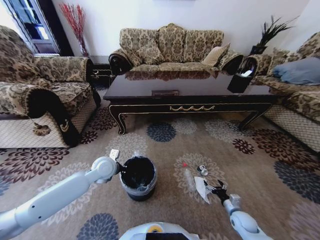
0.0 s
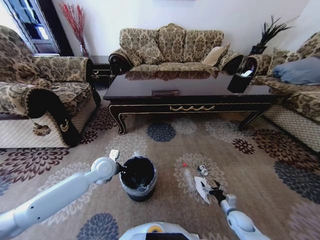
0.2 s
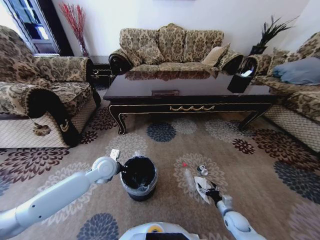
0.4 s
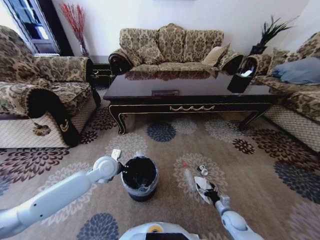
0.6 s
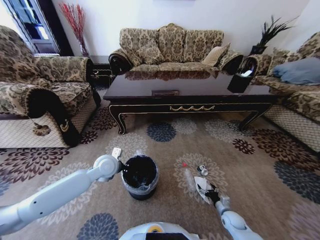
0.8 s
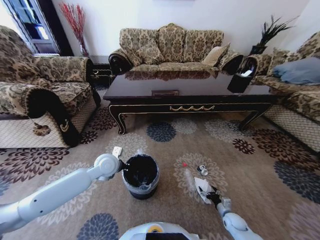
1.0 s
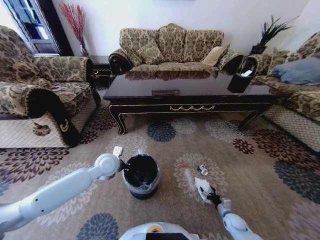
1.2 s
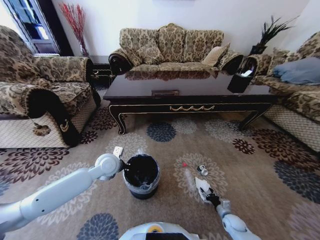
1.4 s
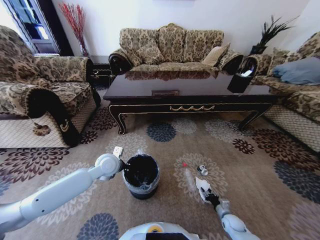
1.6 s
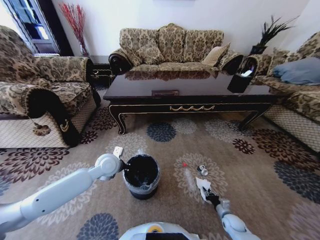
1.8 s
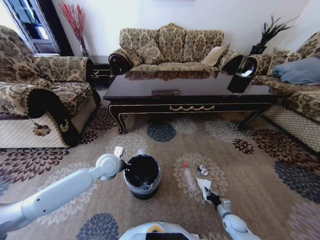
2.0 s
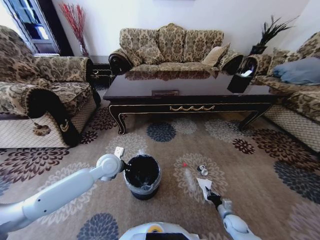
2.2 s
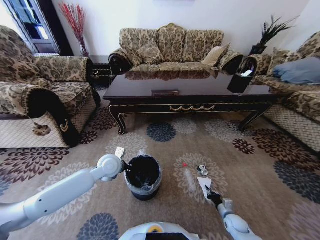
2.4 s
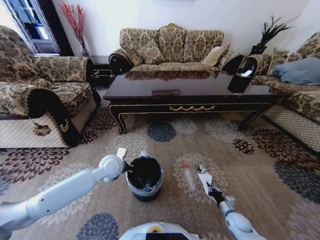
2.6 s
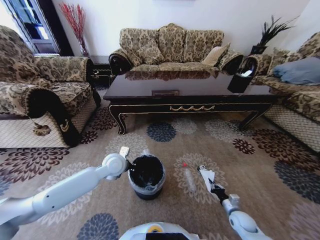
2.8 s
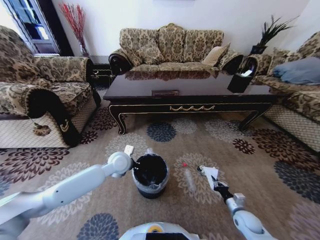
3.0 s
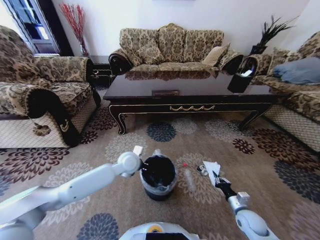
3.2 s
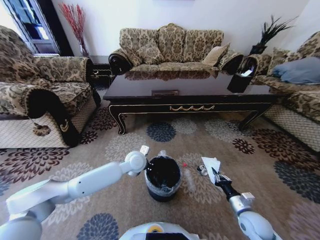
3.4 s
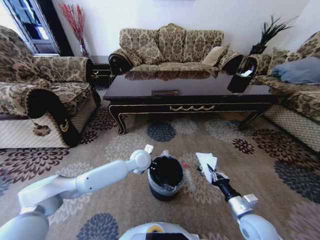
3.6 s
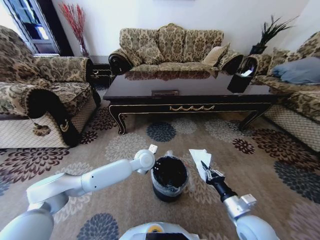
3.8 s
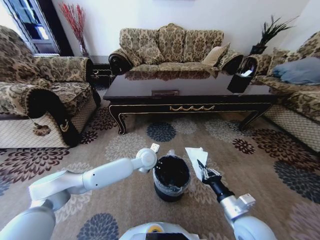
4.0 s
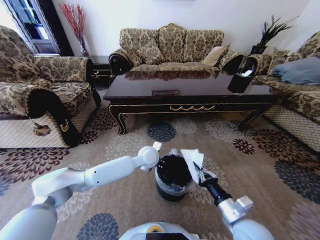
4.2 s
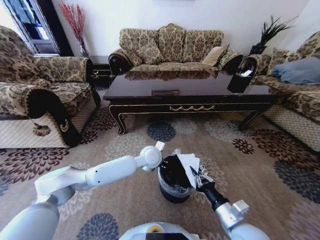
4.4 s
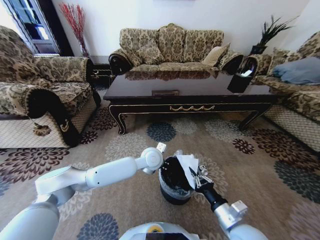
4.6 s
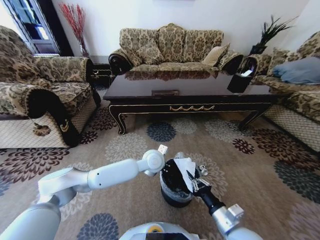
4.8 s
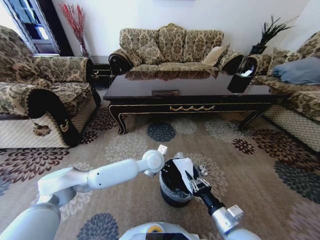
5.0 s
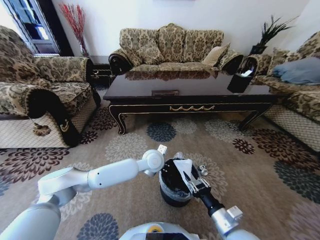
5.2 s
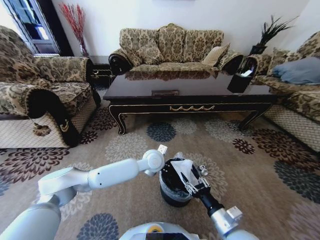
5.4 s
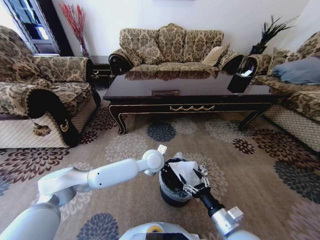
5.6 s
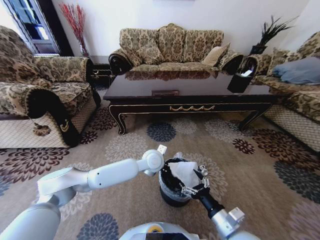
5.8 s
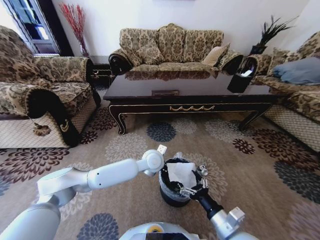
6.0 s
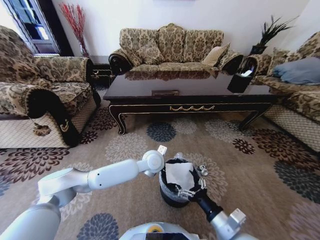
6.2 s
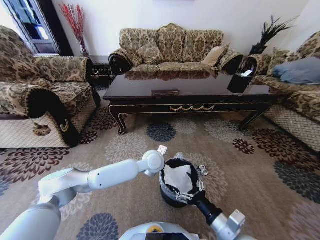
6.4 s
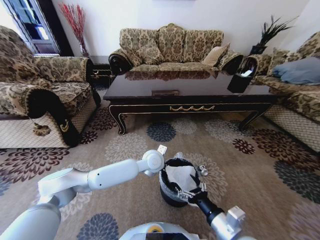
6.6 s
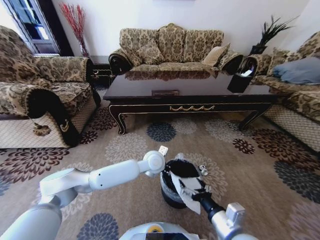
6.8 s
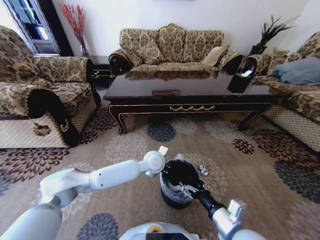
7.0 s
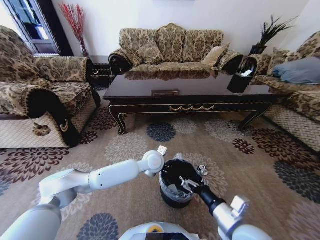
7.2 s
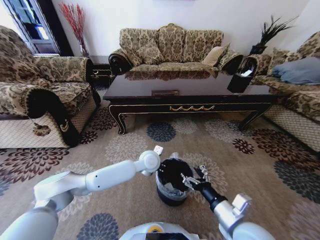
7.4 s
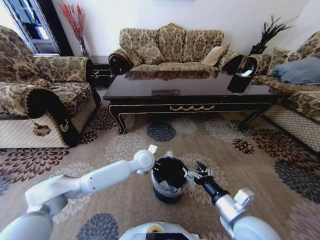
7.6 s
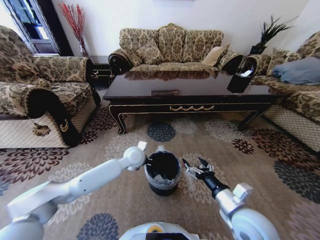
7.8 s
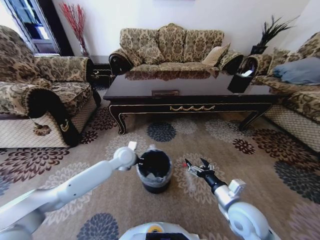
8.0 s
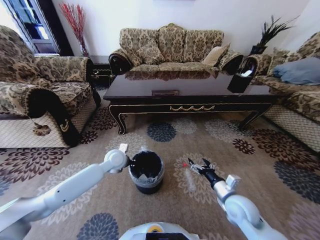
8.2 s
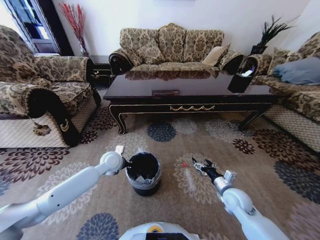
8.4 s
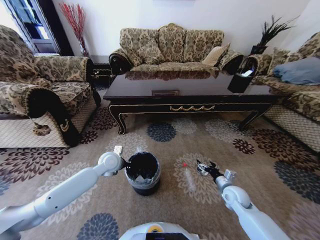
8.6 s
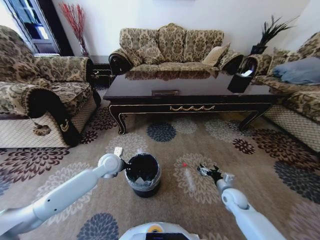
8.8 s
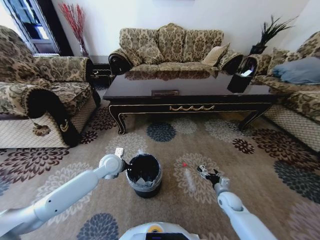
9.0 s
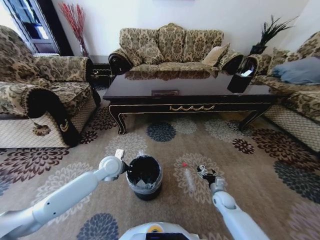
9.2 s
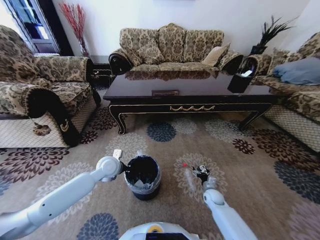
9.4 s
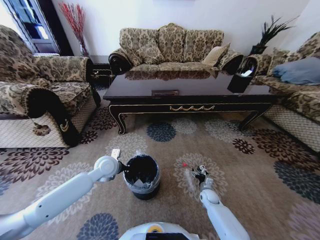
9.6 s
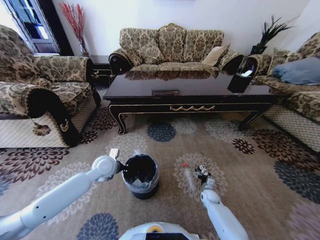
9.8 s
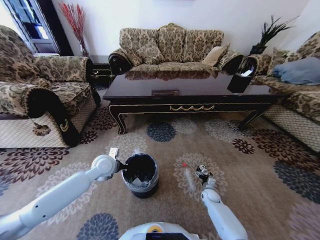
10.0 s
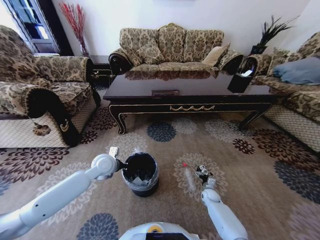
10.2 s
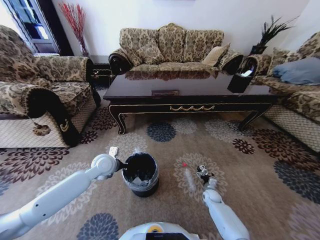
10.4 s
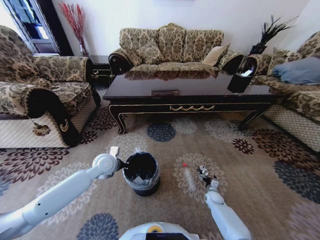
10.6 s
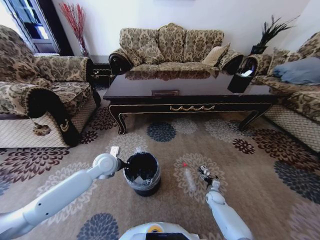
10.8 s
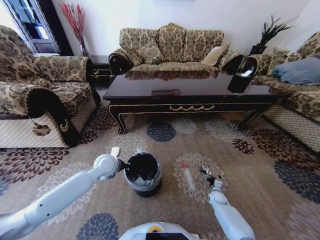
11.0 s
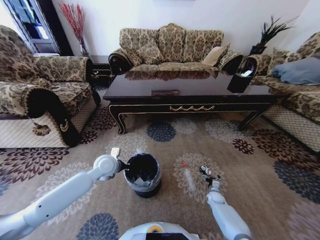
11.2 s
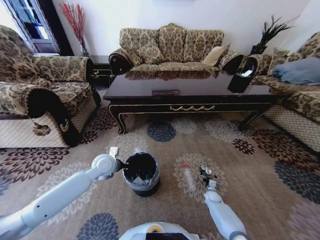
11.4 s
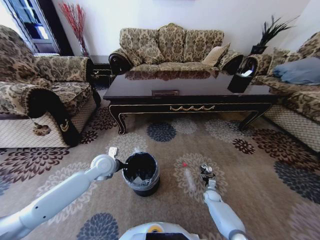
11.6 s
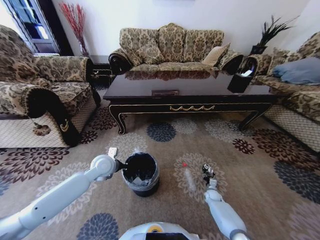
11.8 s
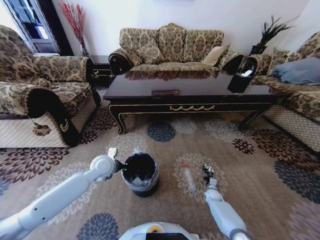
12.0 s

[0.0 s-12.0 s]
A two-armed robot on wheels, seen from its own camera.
Task of the whole recording: Move to the front of the table and pick up the trash from the floor, then place it into the trash bin.
0.0 to 1.6 s: The right gripper travels downward by roughly 5 cm, and closes up.
1.6 to 3.0 s: The right gripper goes some 10 cm upward, and closes; the left gripper moves some 5 cm.
3.0 to 4.4 s: The right gripper travels upward and to the left by approximately 25 cm. Meanwhile the left gripper shifts roughly 15 cm to the right.
4.4 to 6.0 s: The right gripper opens its fingers.
6.0 to 7.6 s: The right gripper heads upward, covering roughly 5 cm.
7.6 to 9.0 s: The right gripper heads downward, forward and to the right, covering roughly 30 cm. Meanwhile the left gripper moves to the left, approximately 15 cm.
9.0 to 10.4 s: The right gripper moves downward, some 10 cm.
10.4 to 12.0 s: The right gripper closes its fingers.

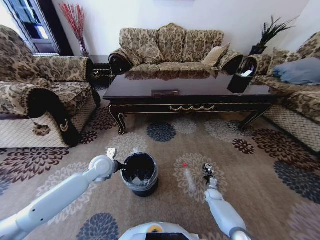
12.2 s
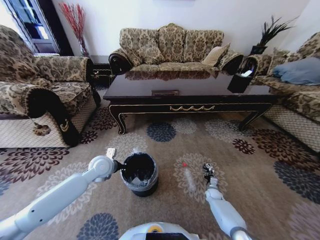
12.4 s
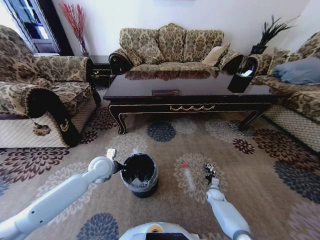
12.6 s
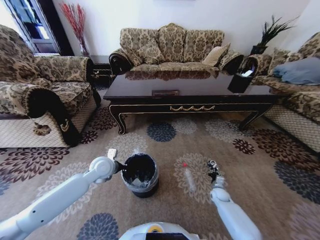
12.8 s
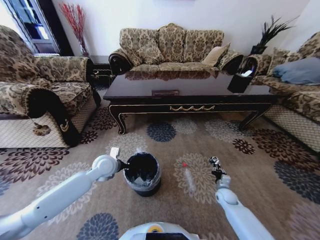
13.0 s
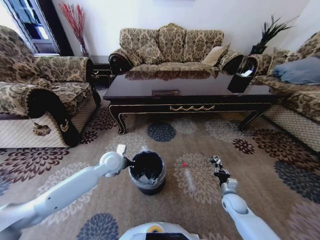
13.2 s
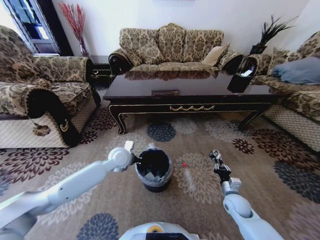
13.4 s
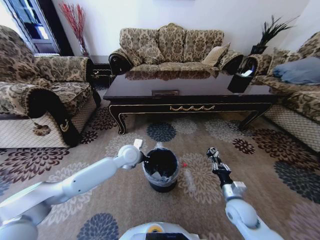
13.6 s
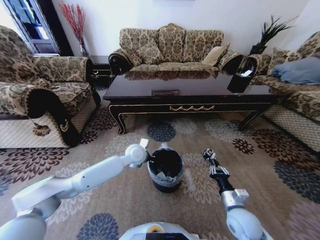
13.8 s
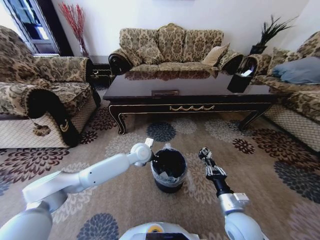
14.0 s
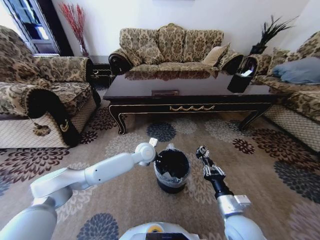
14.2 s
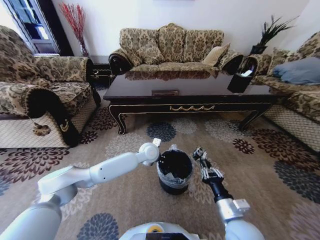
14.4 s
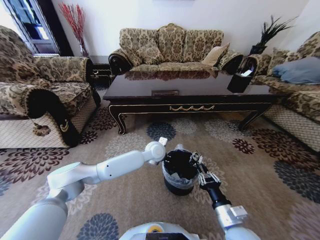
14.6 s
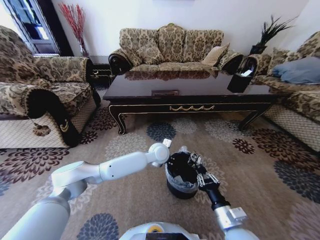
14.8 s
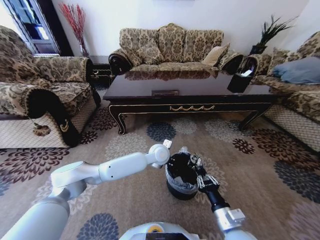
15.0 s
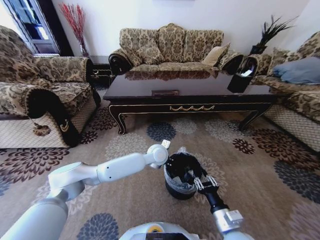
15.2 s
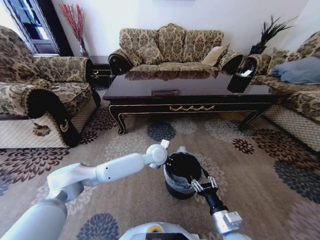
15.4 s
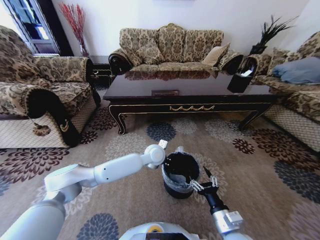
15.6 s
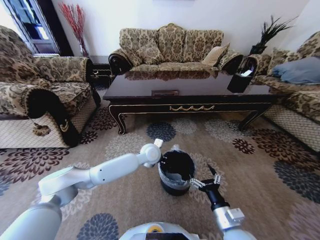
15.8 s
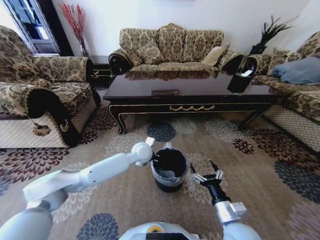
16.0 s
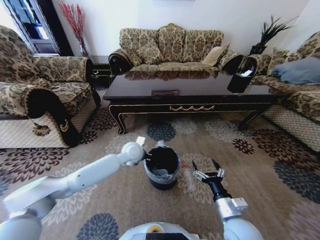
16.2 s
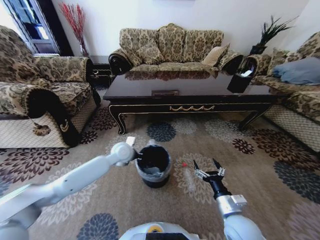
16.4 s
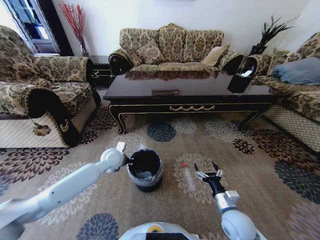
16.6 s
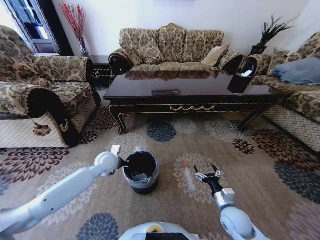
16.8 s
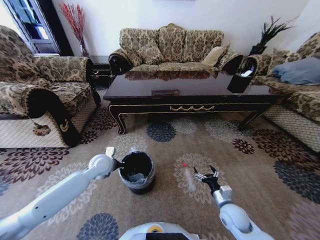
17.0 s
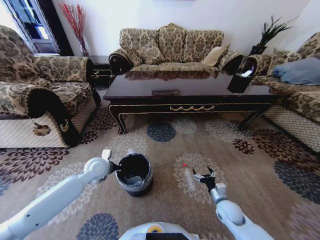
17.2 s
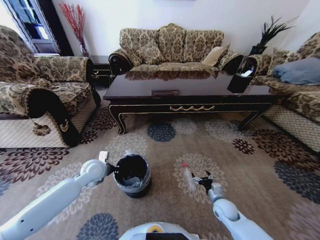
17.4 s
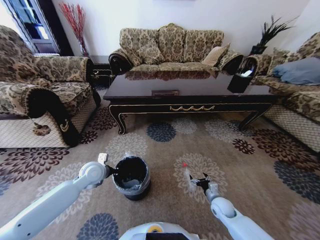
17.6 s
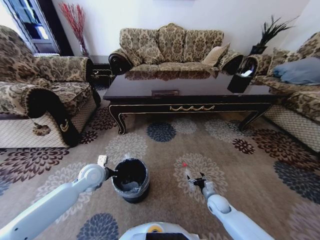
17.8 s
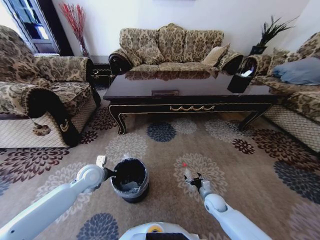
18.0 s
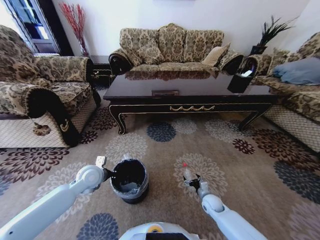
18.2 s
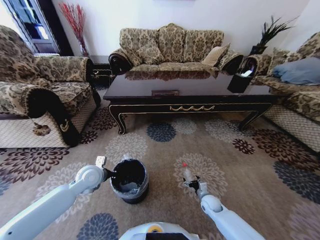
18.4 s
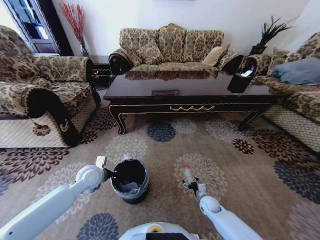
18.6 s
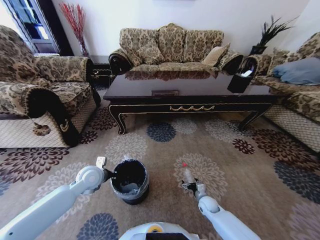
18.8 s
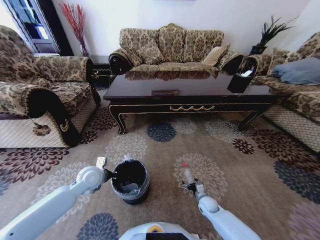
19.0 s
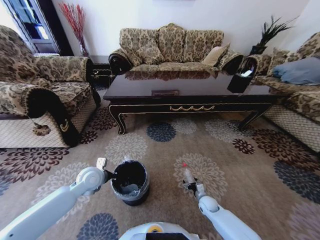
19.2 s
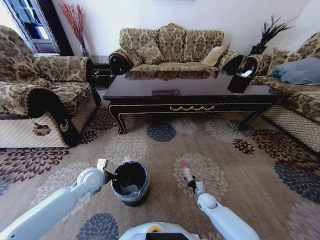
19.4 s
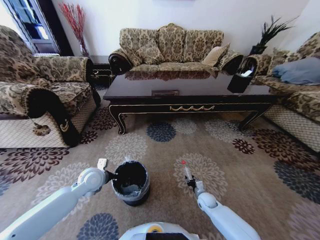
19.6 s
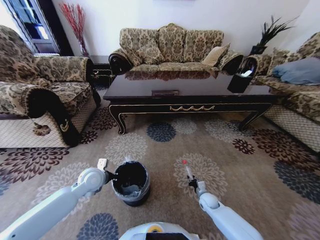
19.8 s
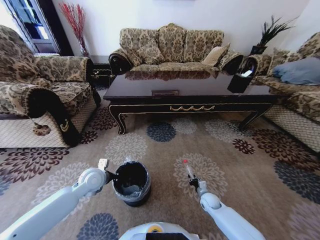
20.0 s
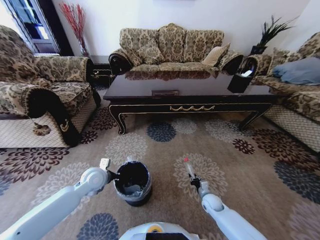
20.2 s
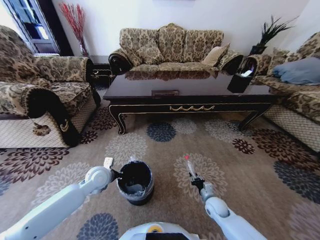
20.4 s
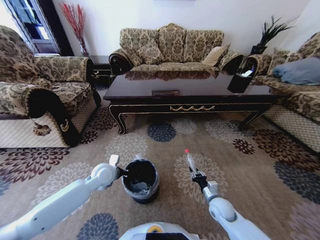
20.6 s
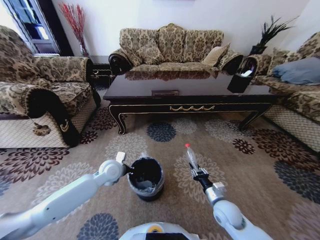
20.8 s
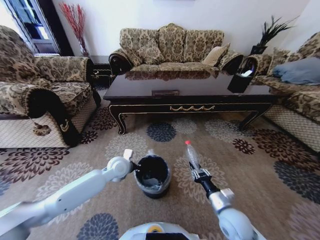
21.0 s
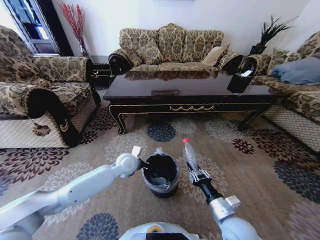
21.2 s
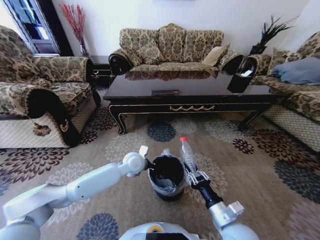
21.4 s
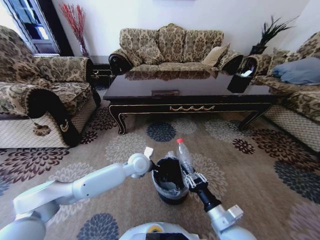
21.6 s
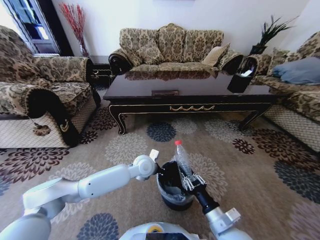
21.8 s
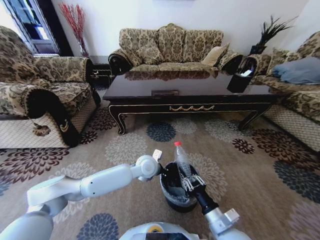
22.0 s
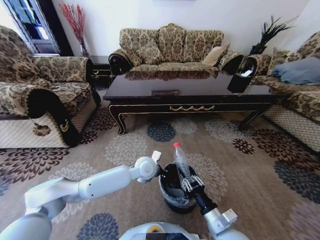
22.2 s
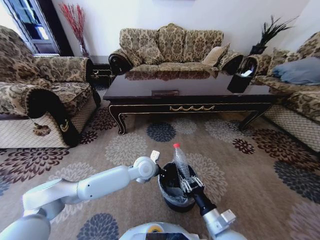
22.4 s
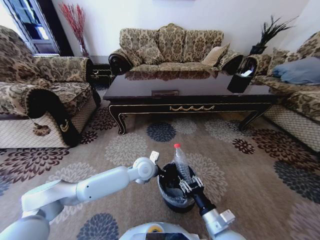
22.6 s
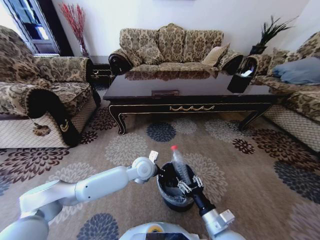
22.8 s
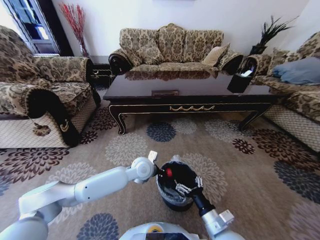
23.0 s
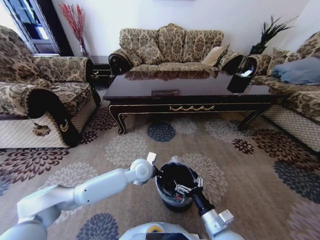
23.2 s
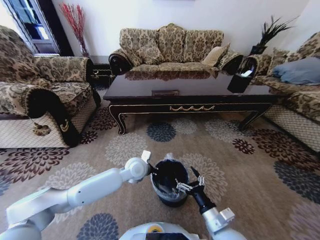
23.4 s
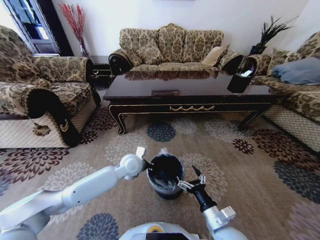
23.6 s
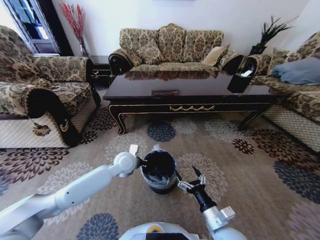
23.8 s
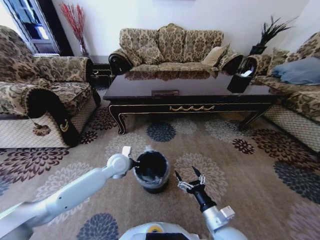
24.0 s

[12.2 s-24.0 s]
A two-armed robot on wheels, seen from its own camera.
Task of the whole recording: Move to the front of the table and pick up the trash from the floor, then place it into the trash bin.
12.2 to 13.6 s: The right gripper moves upward and backward, approximately 25 cm. The left gripper shifts about 10 cm to the right.
13.6 to 15.2 s: The right gripper is displaced backward and to the left by roughly 15 cm, while the left gripper shifts some 15 cm to the right.
15.2 to 16.6 s: The left gripper travels to the left by roughly 20 cm. Meanwhile the right gripper heads forward, covering approximately 5 cm, and opens.
16.6 to 18.2 s: The right gripper moves downward and forward, some 20 cm. The left gripper goes about 10 cm to the left and backward.
18.2 to 19.6 s: The right gripper closes up.
19.6 to 21.0 s: The right gripper travels upward and backward by roughly 25 cm; the left gripper is displaced to the right and forward by some 10 cm.
21.0 to 22.6 s: The right gripper goes about 5 cm backward. Meanwhile the left gripper is displaced to the right by some 10 cm.
22.6 to 24.0 s: The right gripper opens. The left gripper travels to the left by approximately 10 cm.
